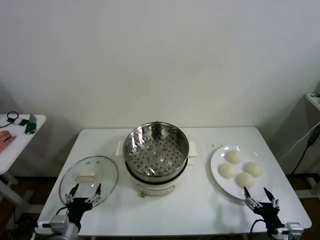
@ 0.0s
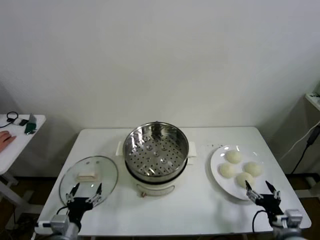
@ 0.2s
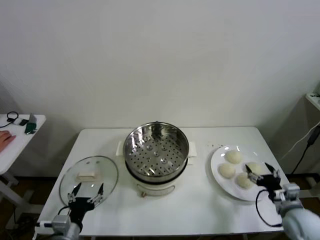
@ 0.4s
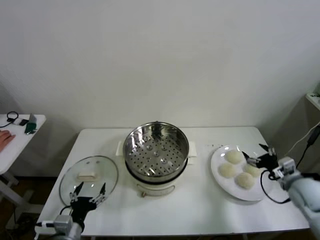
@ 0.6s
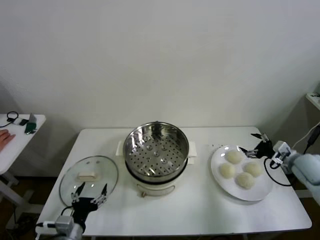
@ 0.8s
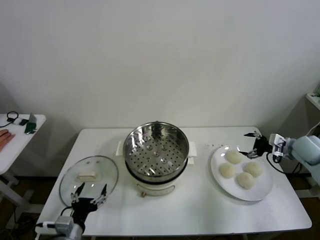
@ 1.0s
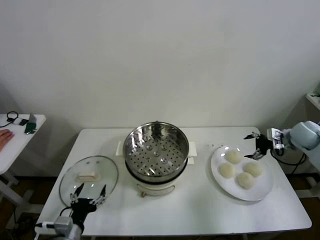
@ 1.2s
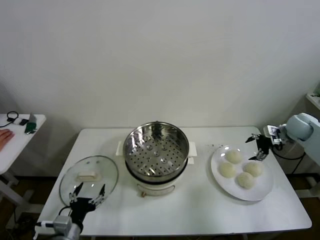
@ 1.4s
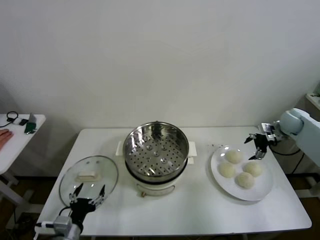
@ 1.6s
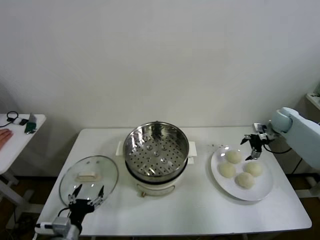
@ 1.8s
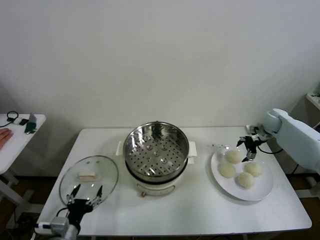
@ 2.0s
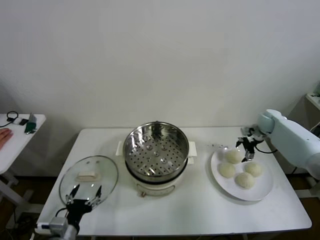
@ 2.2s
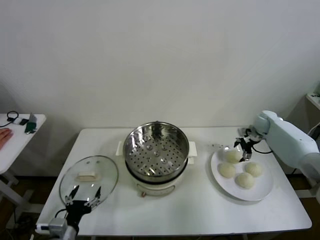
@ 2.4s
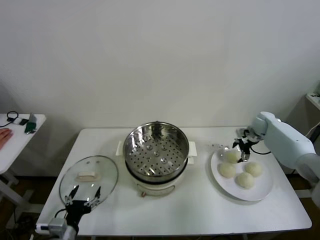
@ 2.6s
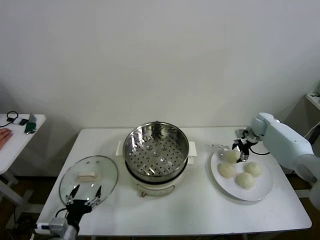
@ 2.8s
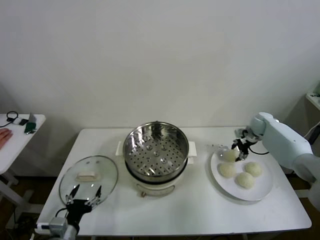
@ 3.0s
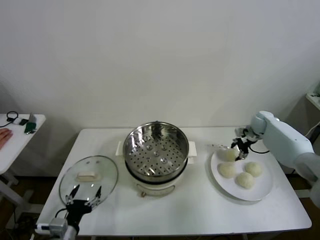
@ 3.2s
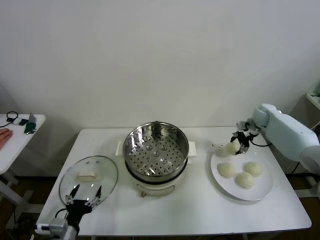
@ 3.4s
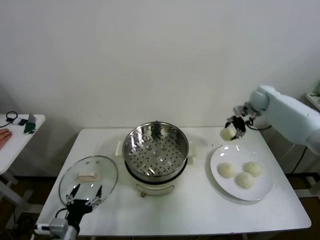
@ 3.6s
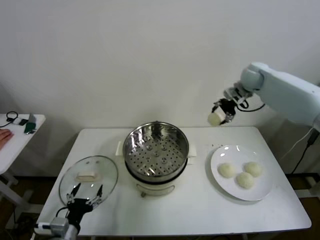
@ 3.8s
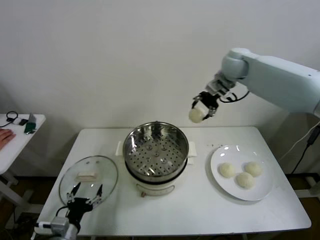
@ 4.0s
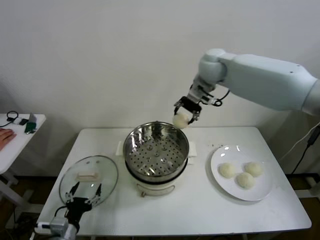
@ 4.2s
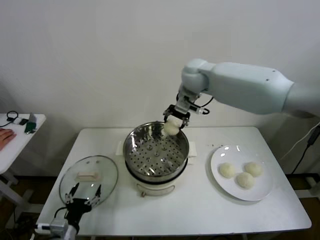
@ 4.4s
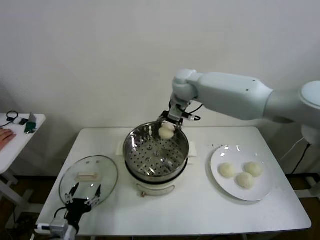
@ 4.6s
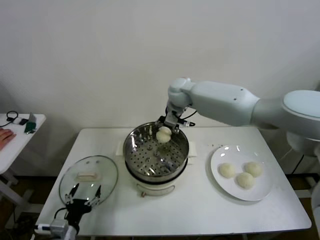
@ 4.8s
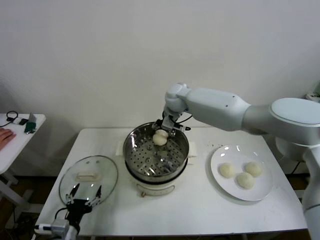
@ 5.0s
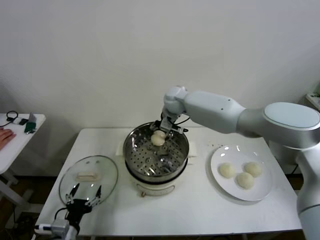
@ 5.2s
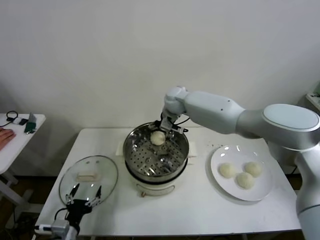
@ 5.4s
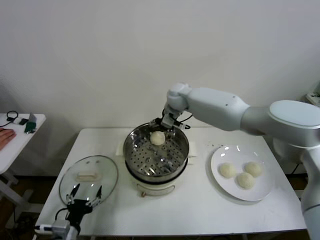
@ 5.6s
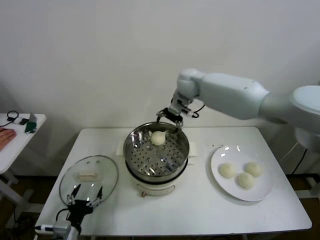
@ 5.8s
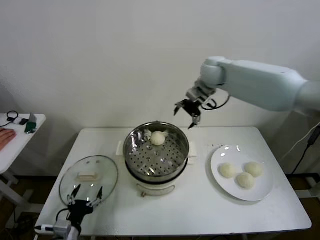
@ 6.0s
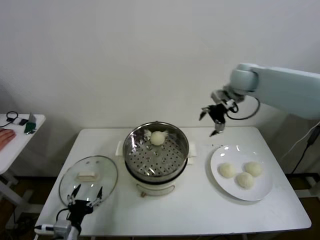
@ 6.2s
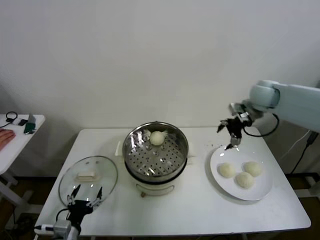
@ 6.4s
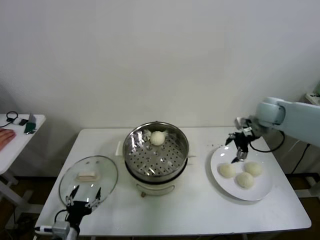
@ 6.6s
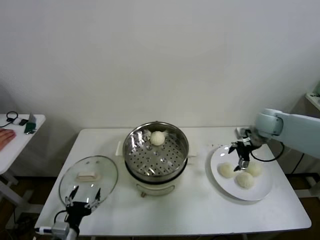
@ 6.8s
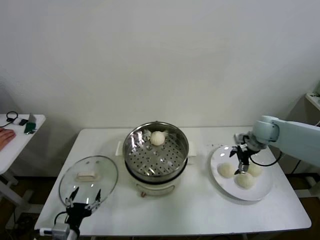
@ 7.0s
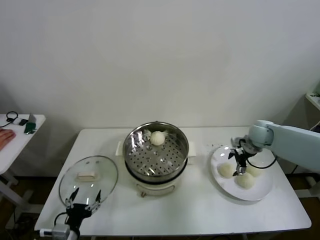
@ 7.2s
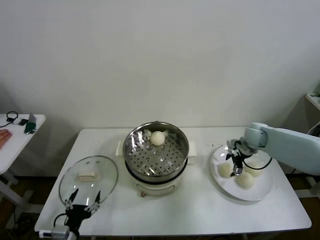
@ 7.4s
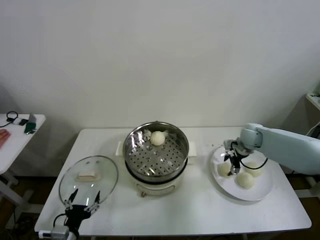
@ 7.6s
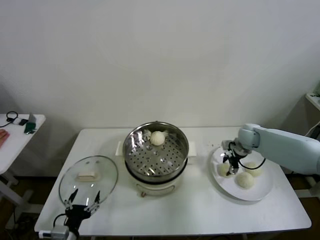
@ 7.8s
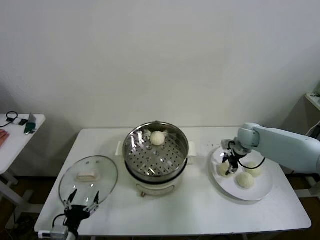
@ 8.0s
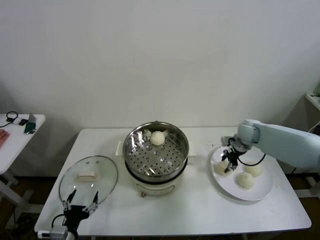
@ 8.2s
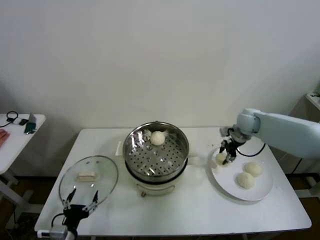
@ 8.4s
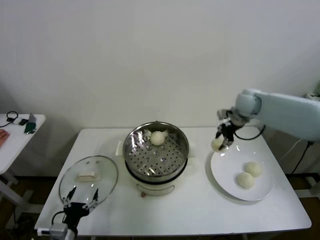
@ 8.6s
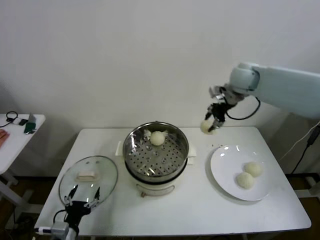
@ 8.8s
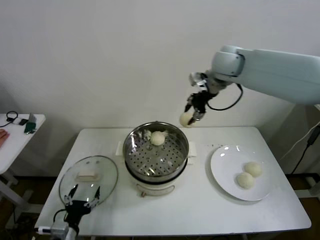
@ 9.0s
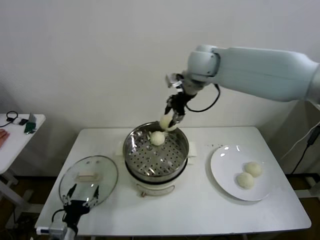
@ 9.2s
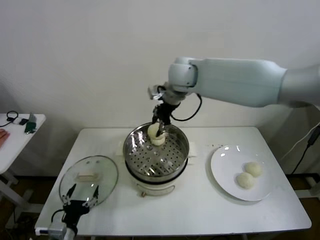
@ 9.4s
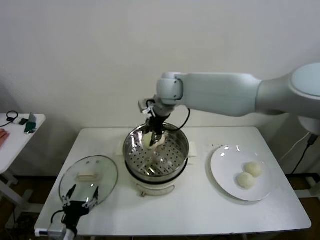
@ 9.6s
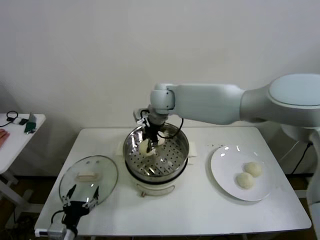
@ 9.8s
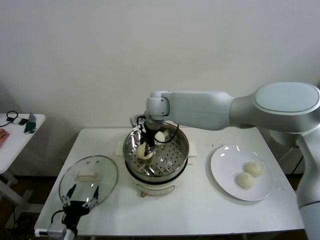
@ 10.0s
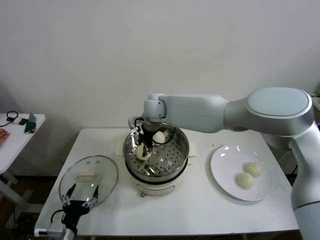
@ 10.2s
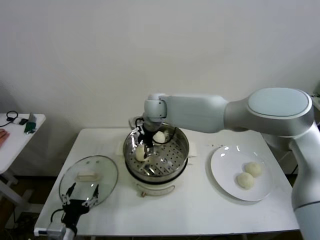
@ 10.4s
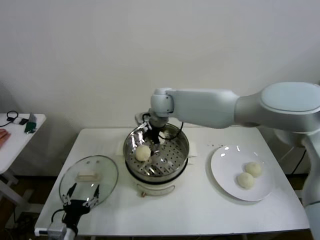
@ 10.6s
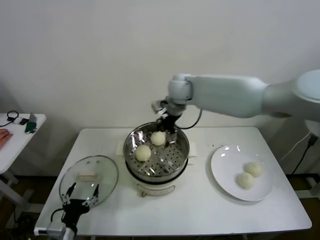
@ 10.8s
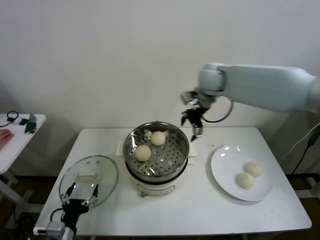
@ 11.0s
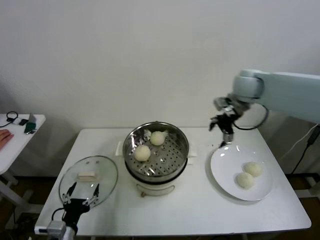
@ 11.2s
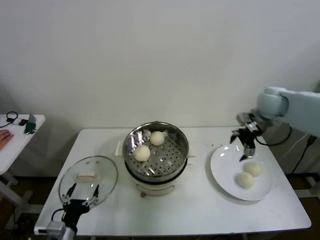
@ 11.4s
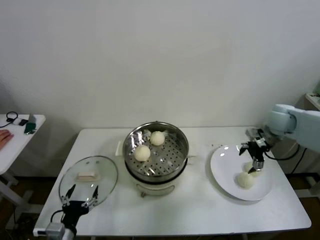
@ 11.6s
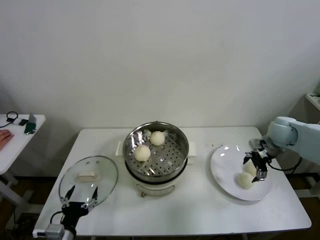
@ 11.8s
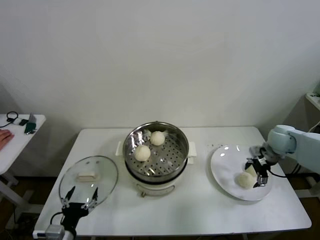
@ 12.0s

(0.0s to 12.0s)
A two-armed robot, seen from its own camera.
Step, 0.0s - 3.0s: Grasp the baozi in the plate with right gripper.
Step, 3.2s - 5.2s: Place the baozi on the steamer with right gripper.
Step, 5.4s - 7.8s: Grasp the baozi in the plate with right gripper.
Step, 8.0s - 10.2s: Place the baozi on the steamer with right gripper.
1.6s - 3.0s: The right gripper is displaced downward and to the left by some 10 cm, and closes its fingers.
3.0s - 4.4s: The right gripper shifts approximately 40 cm to the left and upward.
4.4s - 6.0s: The right gripper moves to the right, roughly 10 cm, and opens.
6.0s - 7.6s: The right gripper shifts some 30 cm downward and to the right, and closes up.
7.6s - 9.0s: The right gripper heads upward and to the left, covering about 35 cm, and closes.
9.0s - 10.4s: The right gripper goes some 25 cm to the left and downward, and opens up.
10.4s - 12.0s: The right gripper moves to the right, about 40 cm.

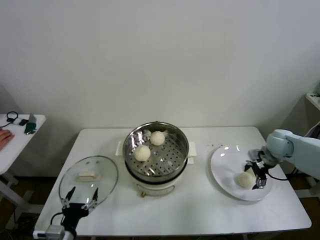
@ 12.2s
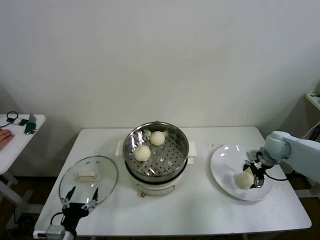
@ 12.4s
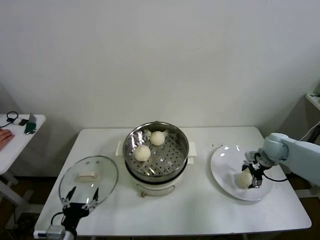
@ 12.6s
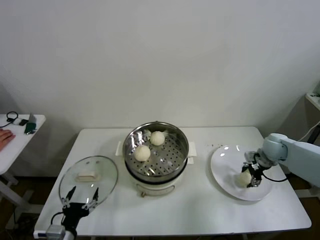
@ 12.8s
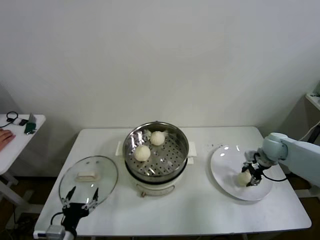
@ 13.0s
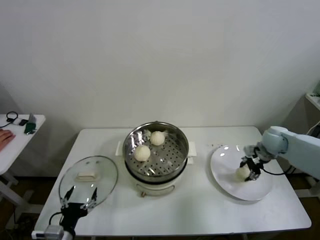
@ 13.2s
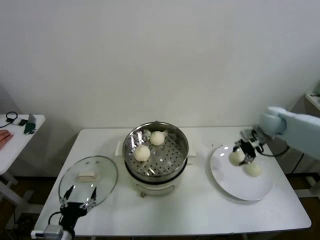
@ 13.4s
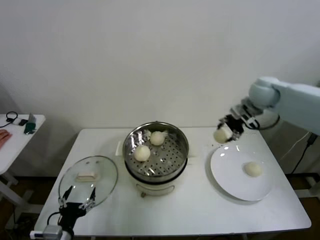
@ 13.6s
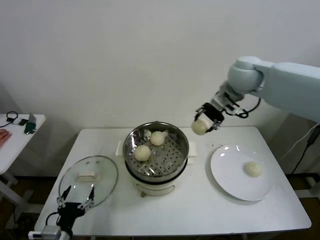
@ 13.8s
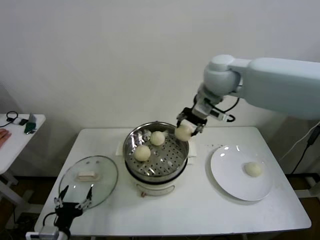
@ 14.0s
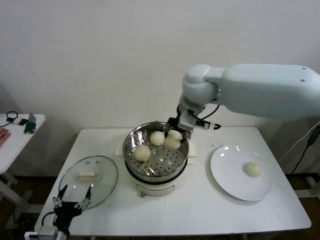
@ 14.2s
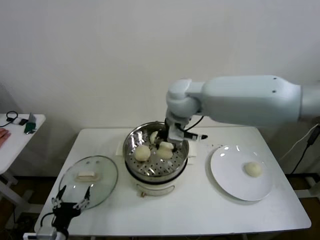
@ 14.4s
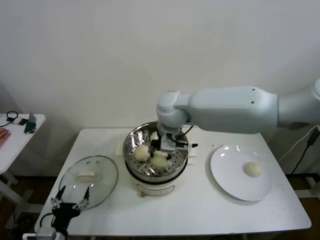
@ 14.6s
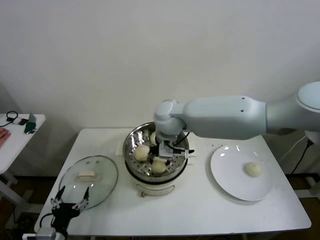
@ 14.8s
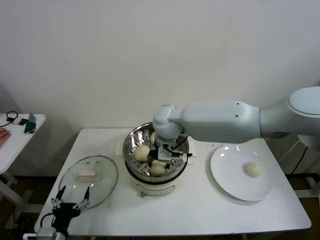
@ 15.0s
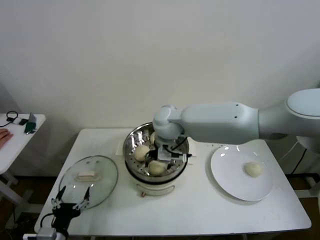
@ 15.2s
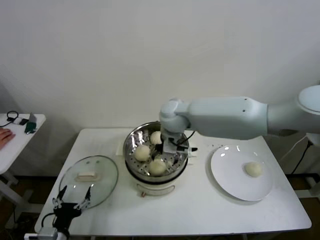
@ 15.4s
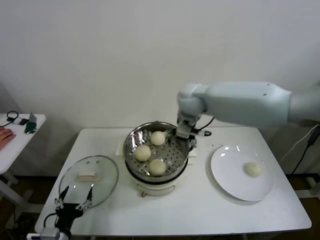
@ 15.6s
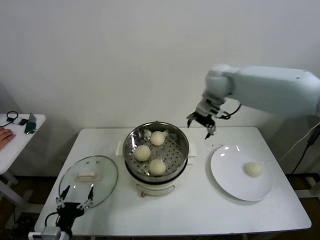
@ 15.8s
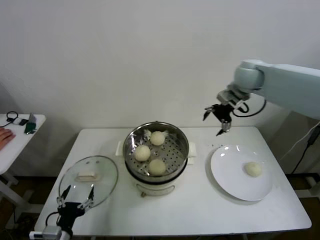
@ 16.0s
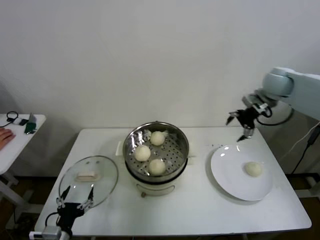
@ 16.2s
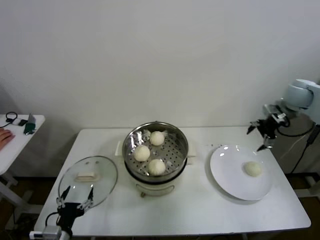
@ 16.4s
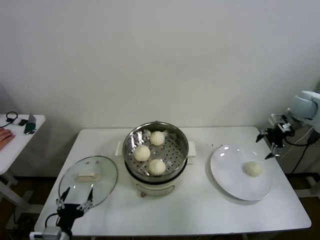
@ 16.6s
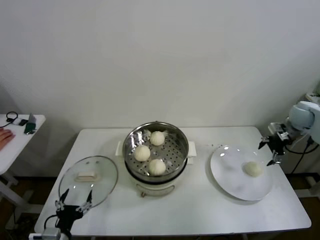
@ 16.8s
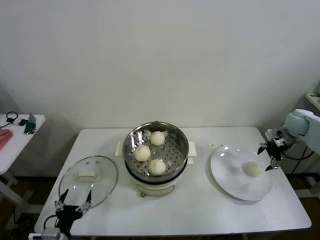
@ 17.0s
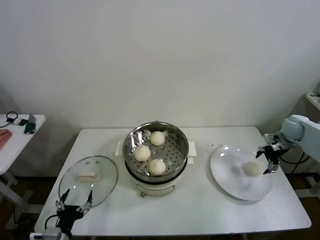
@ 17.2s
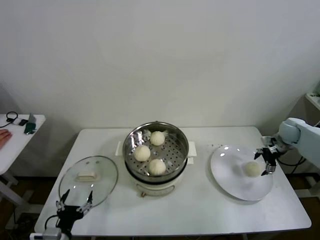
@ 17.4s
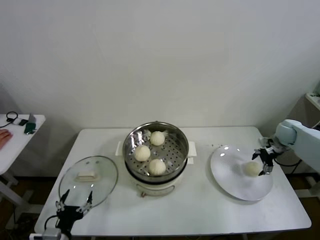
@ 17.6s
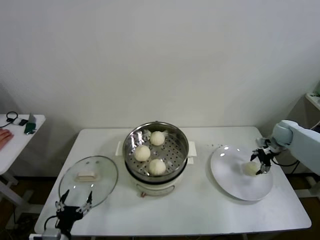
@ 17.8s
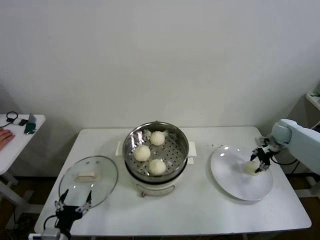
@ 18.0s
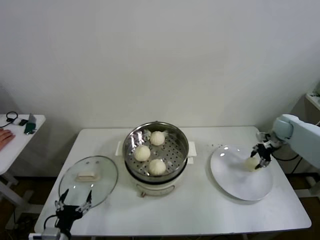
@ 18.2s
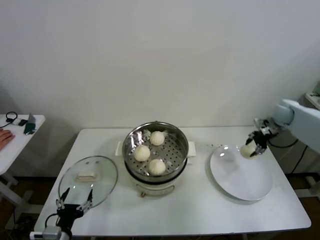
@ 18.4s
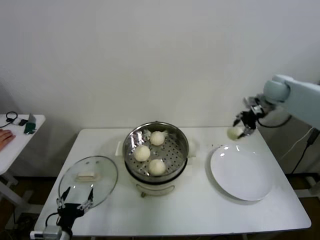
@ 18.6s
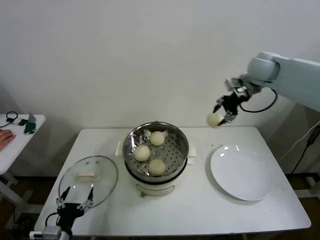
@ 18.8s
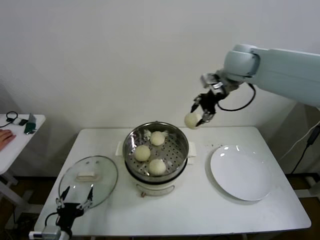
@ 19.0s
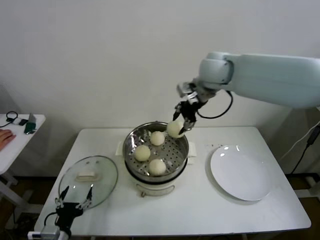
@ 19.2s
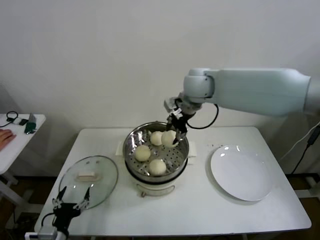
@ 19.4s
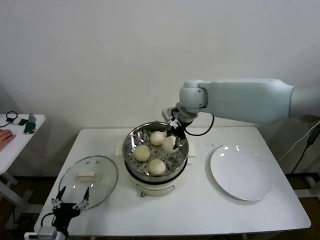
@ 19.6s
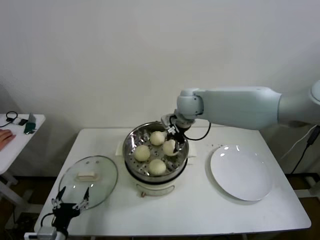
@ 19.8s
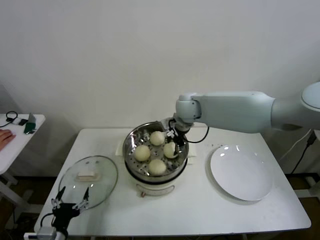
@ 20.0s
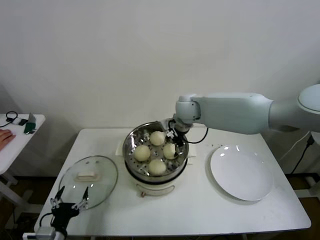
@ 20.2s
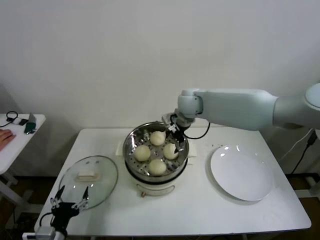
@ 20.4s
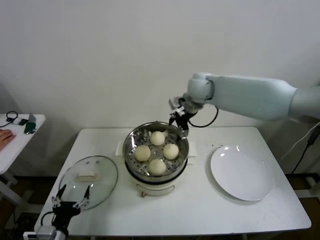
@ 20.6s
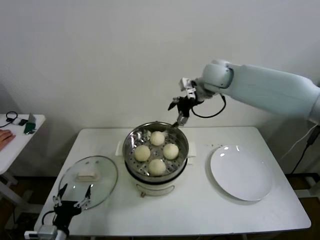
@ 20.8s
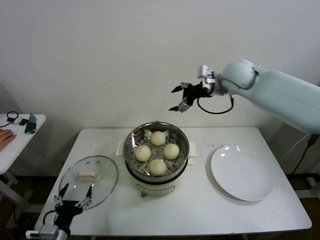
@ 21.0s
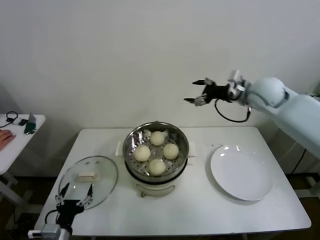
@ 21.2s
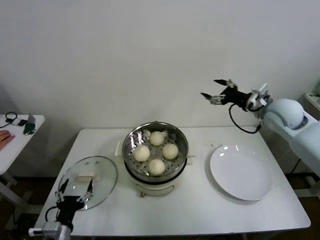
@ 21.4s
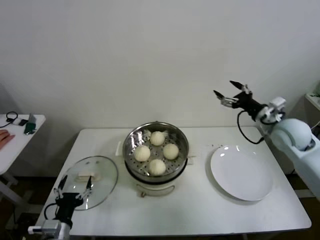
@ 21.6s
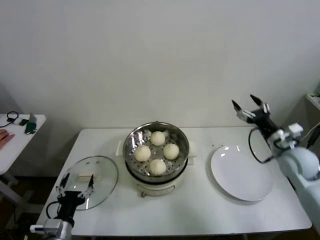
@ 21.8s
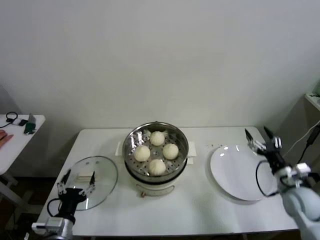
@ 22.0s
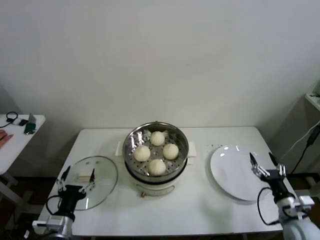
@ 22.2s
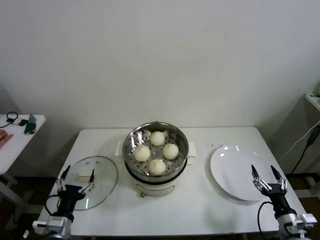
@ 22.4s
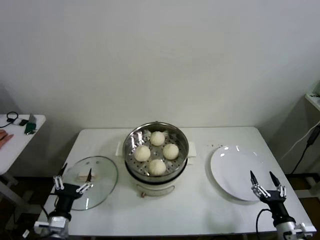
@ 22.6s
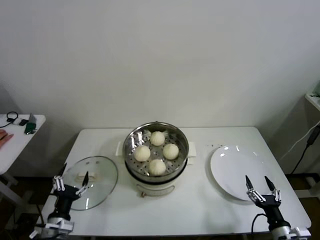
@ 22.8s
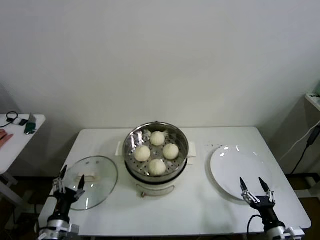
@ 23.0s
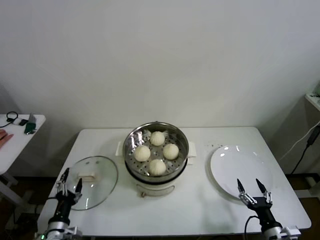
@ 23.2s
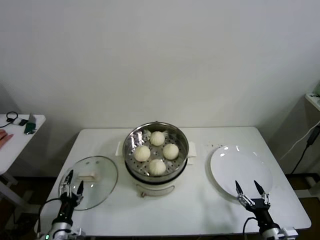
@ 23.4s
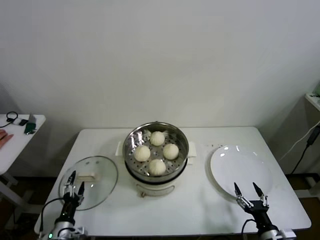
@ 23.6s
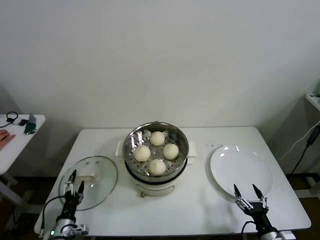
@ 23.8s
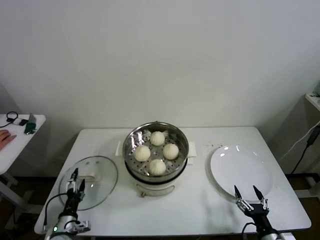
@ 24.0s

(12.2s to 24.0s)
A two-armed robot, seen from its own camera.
Step, 13.0s - 15.0s: Place the baozi on the steamer with right gripper.
Step, 15.2s - 17.8s: Grasp the baozi in the plate with right gripper.
Step, 18.0s - 20.0s: Place the baozi on the steamer with right gripper.
12.2s - 13.6s: The right gripper moves upward and to the left, approximately 25 cm, and closes up.
13.6s - 15.2s: The right gripper shifts approximately 30 cm to the left, and opens up.
15.2s - 16.6s: The right gripper travels to the right by about 50 cm.
16.6s - 18.2s: The right gripper is displaced downward by approximately 10 cm, and closes up.
18.2s - 19.6s: The right gripper shifts about 40 cm to the left and upward.
19.6s - 21.0s: The right gripper moves to the right and upward, about 15 cm, and opens.
21.0s - 22.6s: The right gripper heads backward, downward and to the right, covering some 60 cm.
22.6s - 24.0s: The left gripper moves downward, approximately 10 cm; the right gripper ends up approximately 5 cm from where it was.
